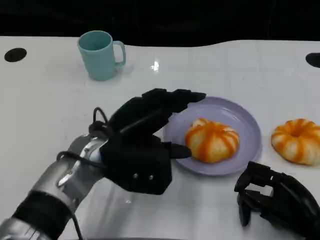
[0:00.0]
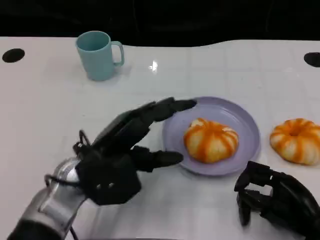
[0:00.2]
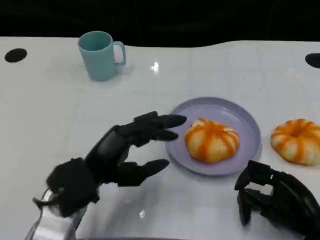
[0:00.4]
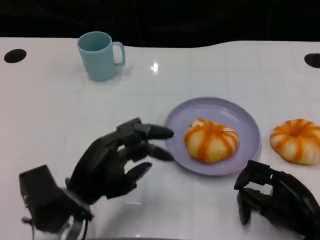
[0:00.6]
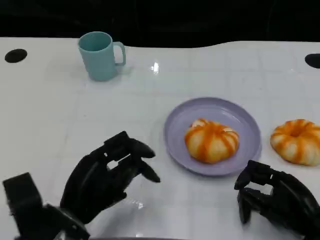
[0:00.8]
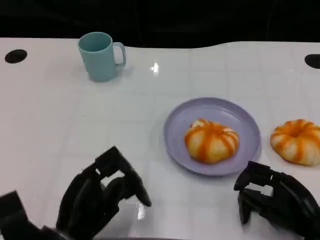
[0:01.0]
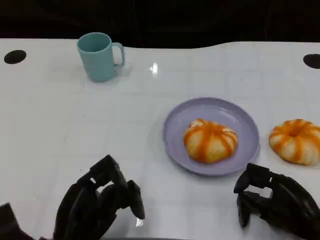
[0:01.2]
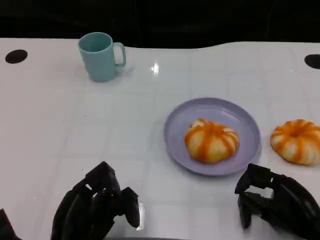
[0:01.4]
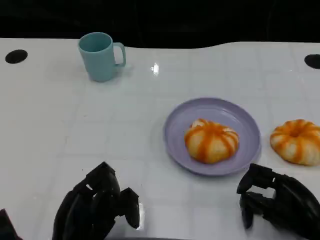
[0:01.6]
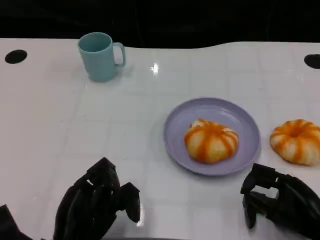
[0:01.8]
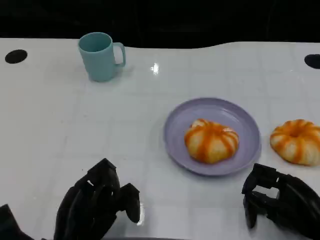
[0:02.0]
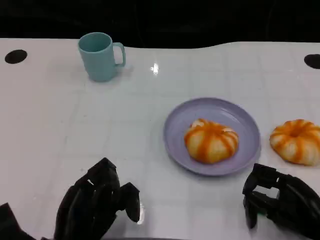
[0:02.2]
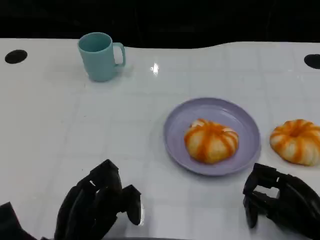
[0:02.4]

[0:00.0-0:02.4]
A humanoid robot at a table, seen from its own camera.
Task of the whole recording: Grasp the bread from the table and place it into the plate.
0:00.0 to 0:01.2: The left hand is displaced backward, downward and to the left by approximately 15 cm.
0:01.2 to 0:02.4: Both hands stay about where they are.

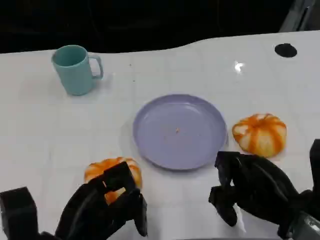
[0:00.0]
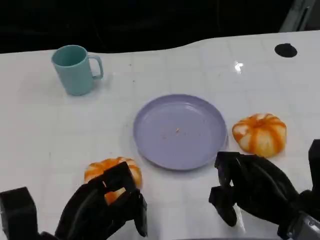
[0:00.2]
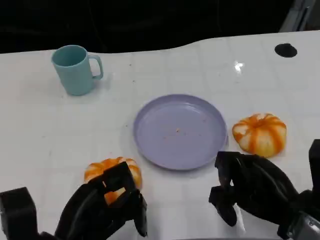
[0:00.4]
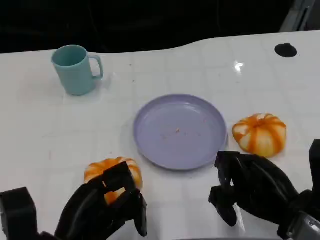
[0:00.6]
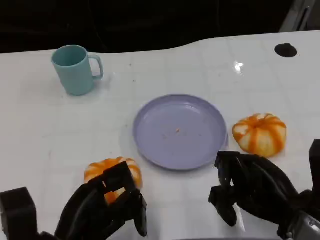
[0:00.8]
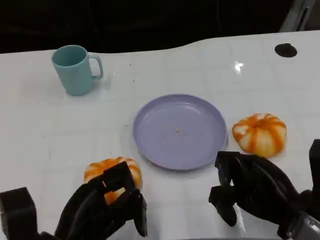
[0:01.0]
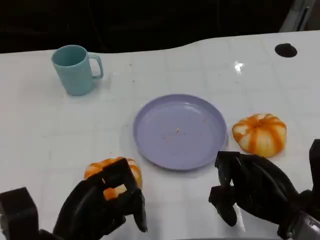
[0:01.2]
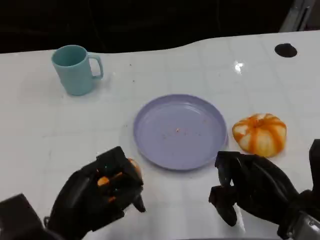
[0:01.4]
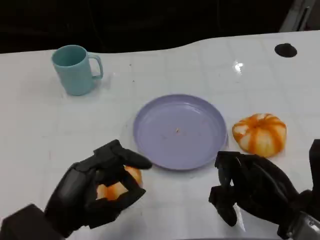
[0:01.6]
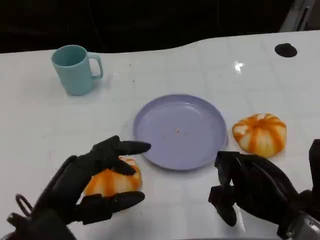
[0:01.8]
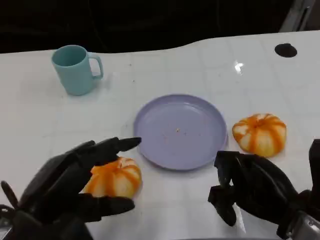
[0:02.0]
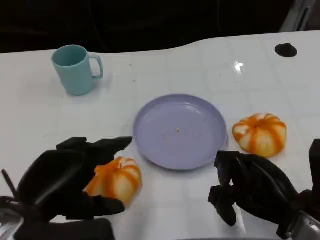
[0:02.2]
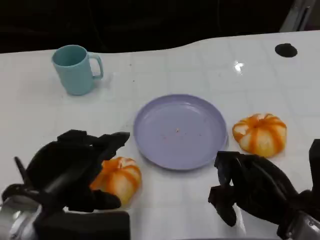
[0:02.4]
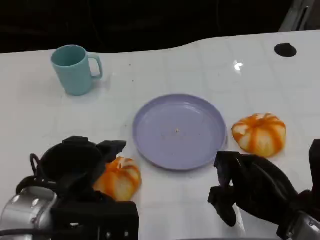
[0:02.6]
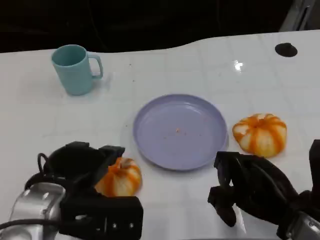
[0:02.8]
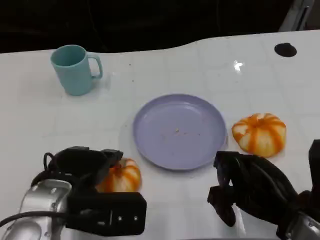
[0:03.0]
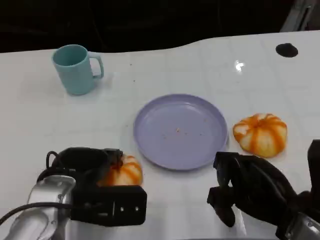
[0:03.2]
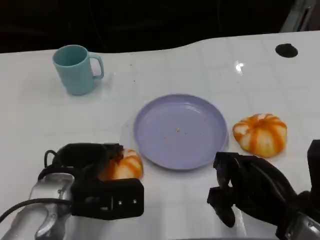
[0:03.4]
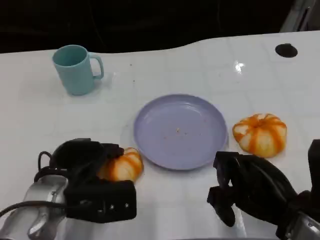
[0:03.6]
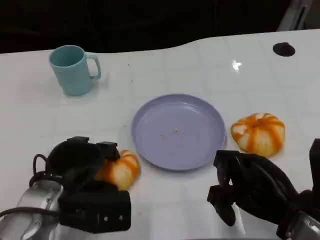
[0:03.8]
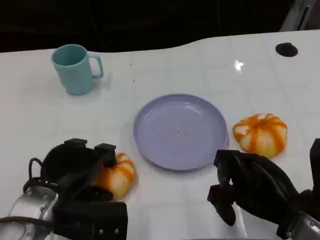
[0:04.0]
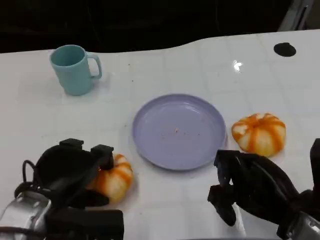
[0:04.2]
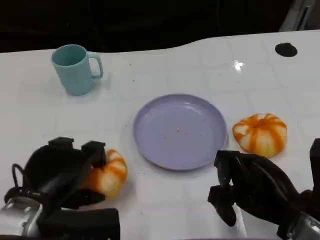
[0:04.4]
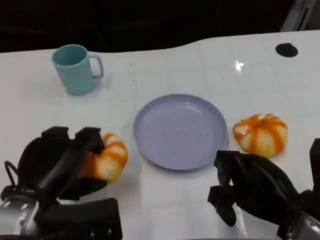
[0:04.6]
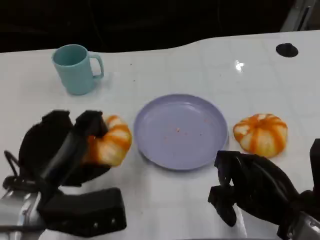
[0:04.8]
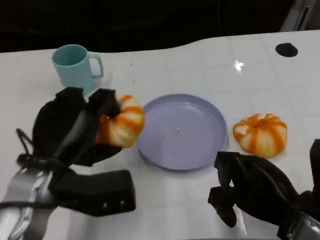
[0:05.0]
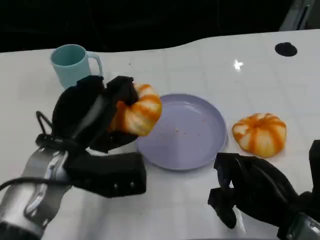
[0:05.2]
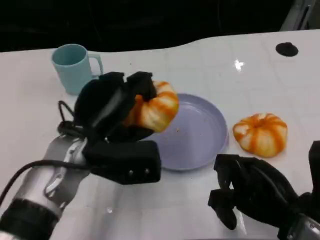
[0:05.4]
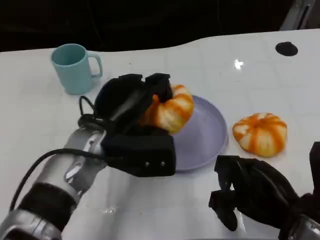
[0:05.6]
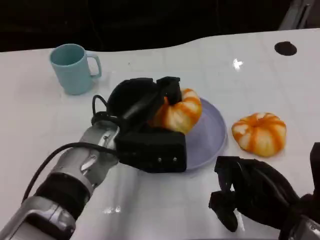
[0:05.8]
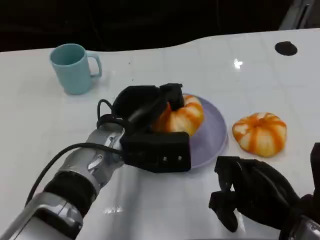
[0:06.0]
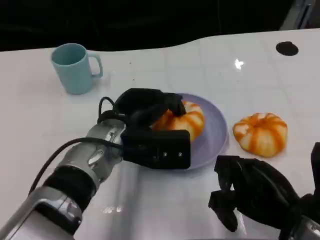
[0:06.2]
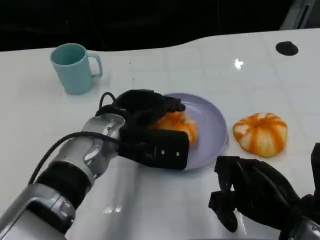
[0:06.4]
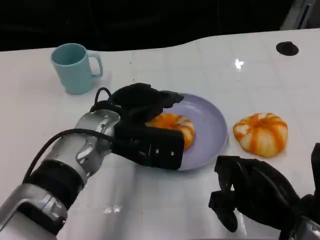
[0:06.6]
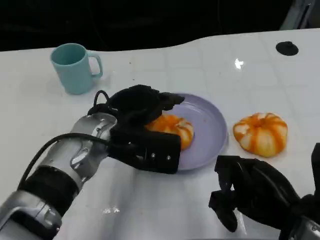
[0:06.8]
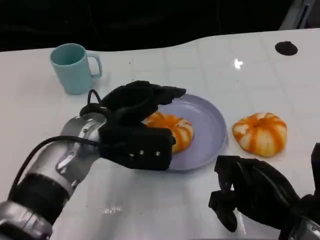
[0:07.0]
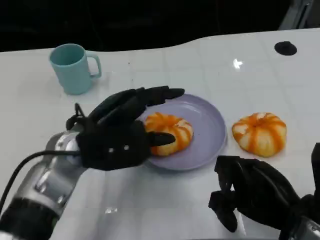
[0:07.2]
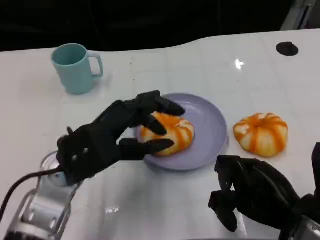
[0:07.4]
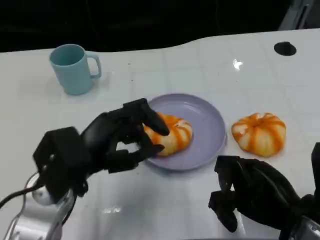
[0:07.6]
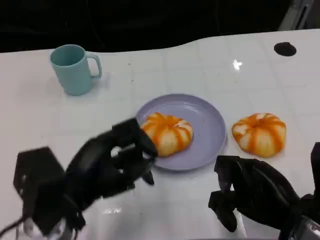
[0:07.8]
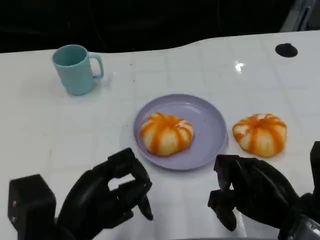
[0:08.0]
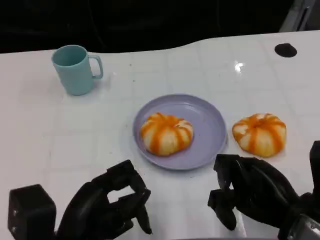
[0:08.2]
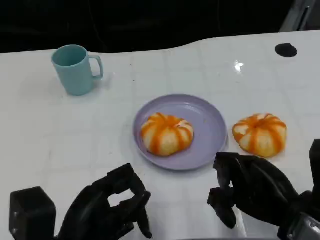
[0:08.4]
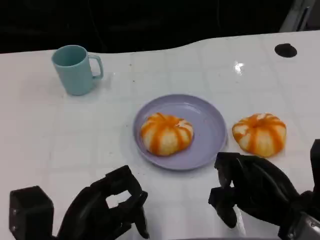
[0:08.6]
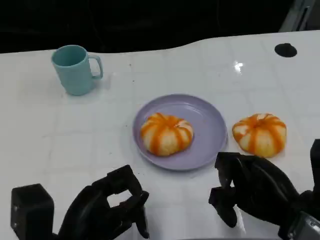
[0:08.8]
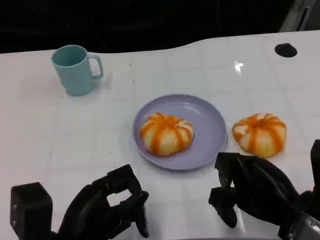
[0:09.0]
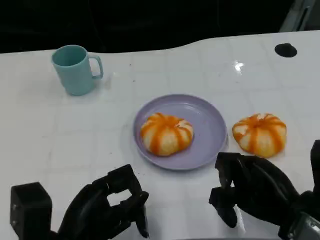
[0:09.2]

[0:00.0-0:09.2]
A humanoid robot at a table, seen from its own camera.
Task of the whole recording: Grasp the bread from the table and place it into the plate.
0:01.6 to 0:03.0: The left hand shifts some 5 cm forward.
0:04.6 to 0:06.2: The left hand moves to the right and forward, about 15 cm.
0:06.2 to 0:07.6: The left hand travels to the left and backward by approximately 10 cm.
0:07.6 to 0:09.2: The left hand is displaced backward and downward by roughly 10 cm.

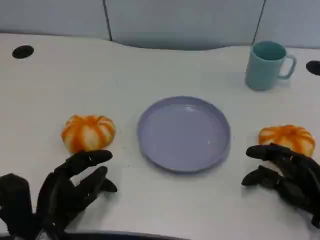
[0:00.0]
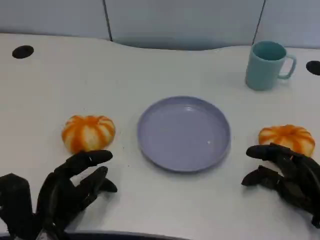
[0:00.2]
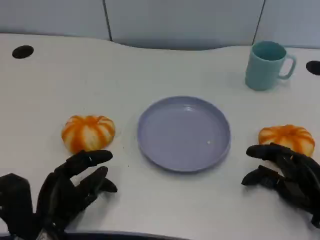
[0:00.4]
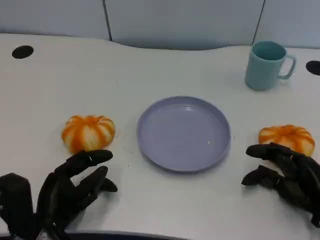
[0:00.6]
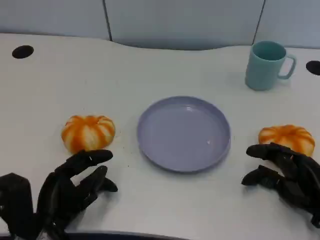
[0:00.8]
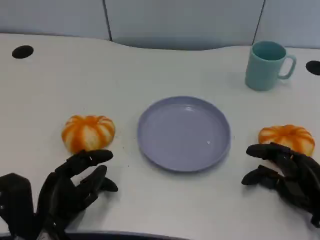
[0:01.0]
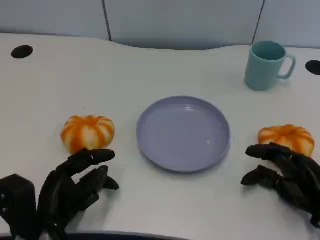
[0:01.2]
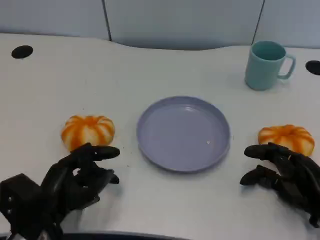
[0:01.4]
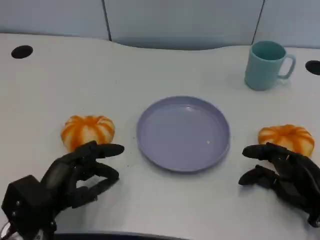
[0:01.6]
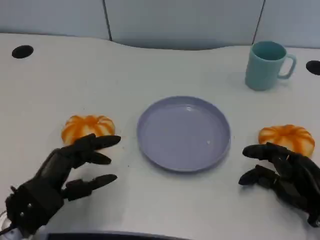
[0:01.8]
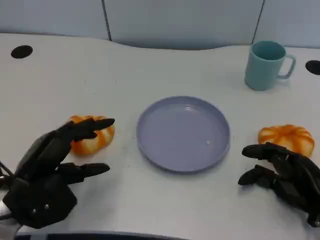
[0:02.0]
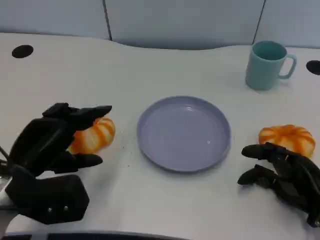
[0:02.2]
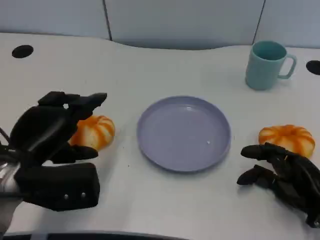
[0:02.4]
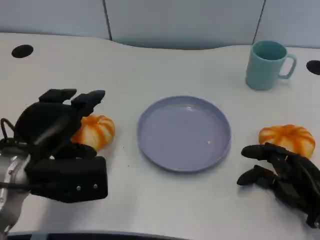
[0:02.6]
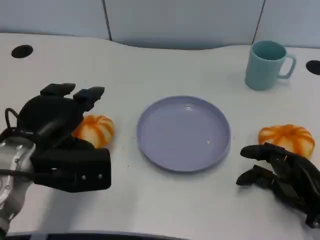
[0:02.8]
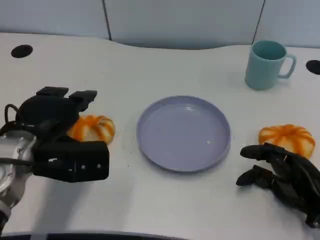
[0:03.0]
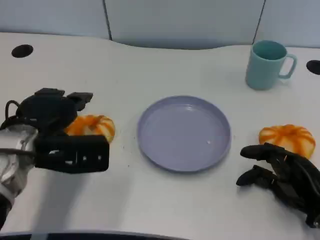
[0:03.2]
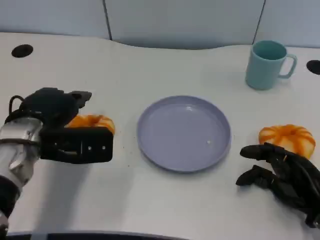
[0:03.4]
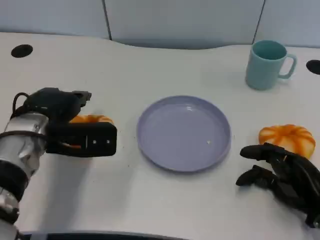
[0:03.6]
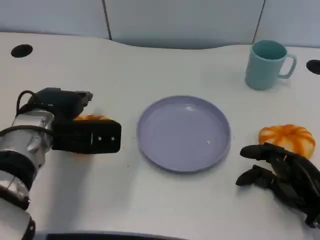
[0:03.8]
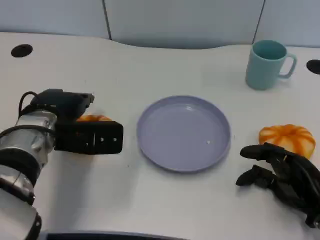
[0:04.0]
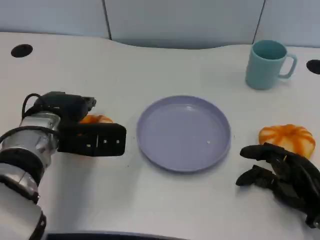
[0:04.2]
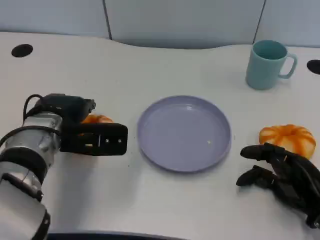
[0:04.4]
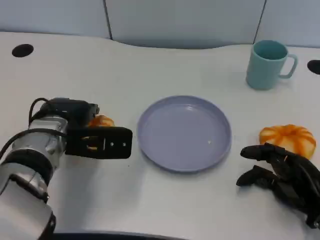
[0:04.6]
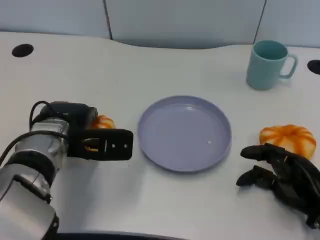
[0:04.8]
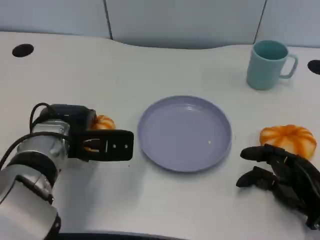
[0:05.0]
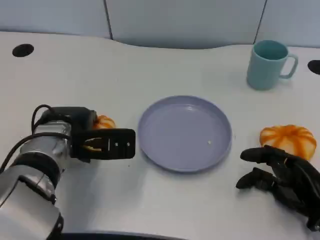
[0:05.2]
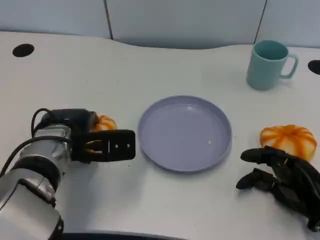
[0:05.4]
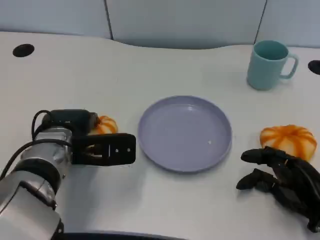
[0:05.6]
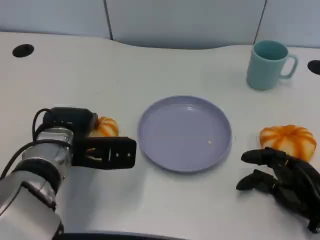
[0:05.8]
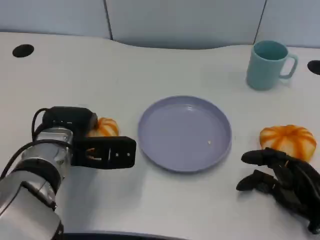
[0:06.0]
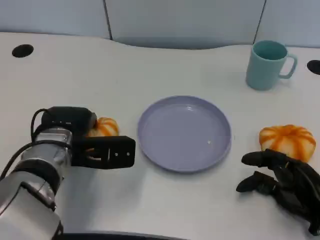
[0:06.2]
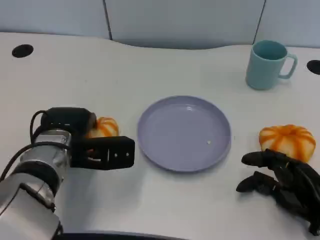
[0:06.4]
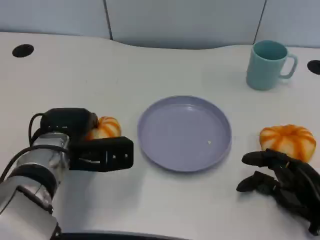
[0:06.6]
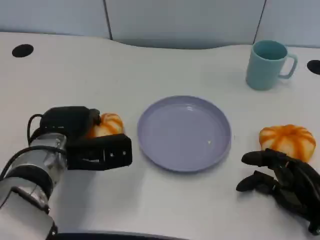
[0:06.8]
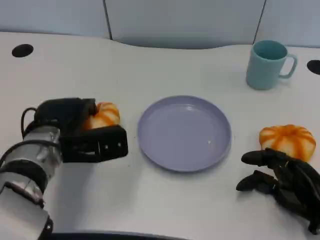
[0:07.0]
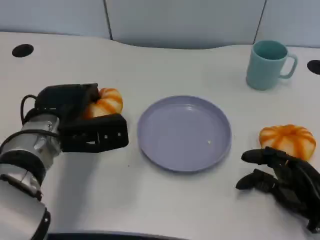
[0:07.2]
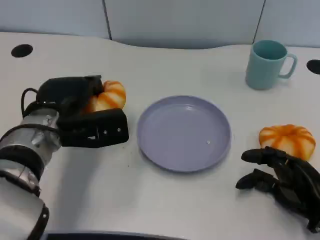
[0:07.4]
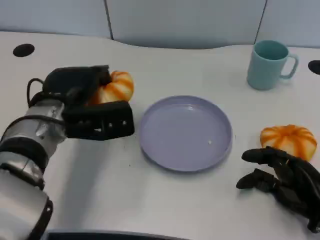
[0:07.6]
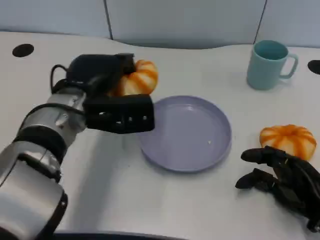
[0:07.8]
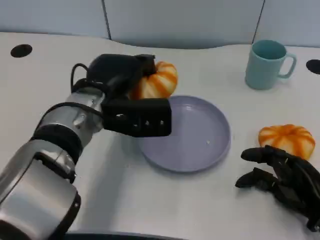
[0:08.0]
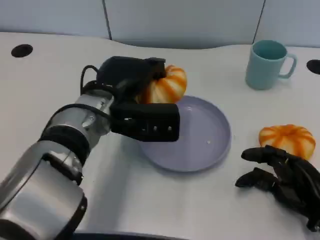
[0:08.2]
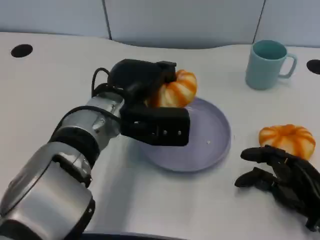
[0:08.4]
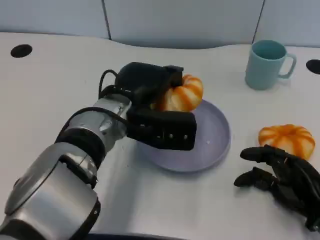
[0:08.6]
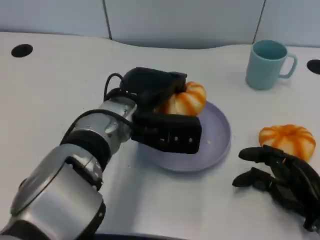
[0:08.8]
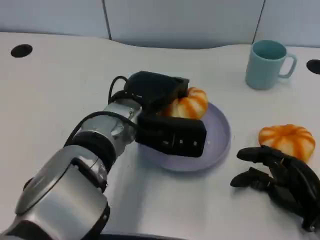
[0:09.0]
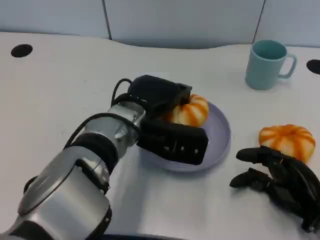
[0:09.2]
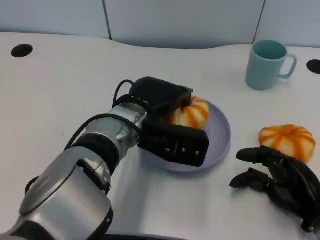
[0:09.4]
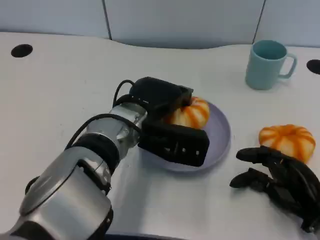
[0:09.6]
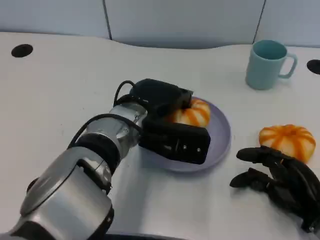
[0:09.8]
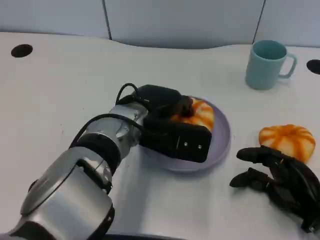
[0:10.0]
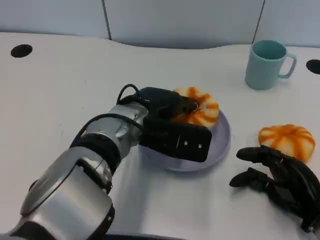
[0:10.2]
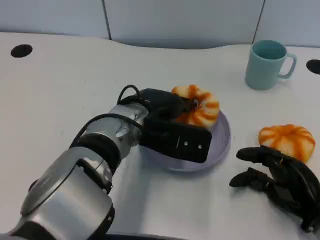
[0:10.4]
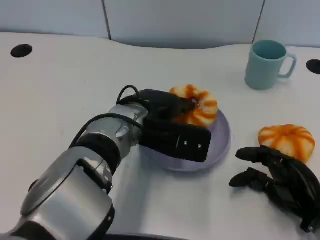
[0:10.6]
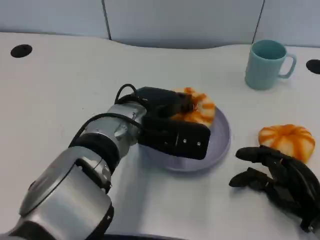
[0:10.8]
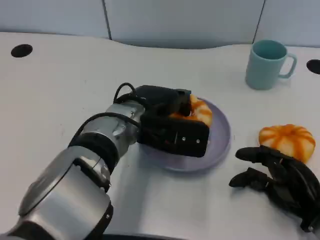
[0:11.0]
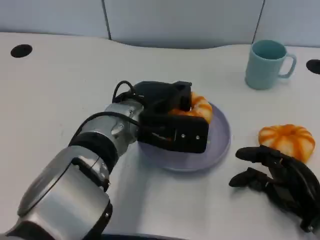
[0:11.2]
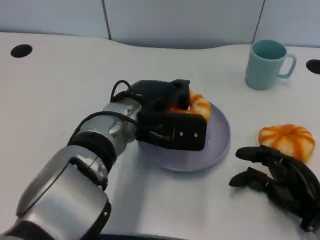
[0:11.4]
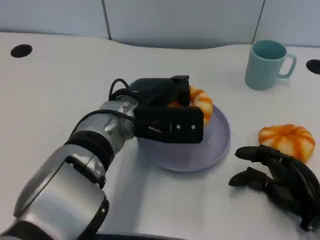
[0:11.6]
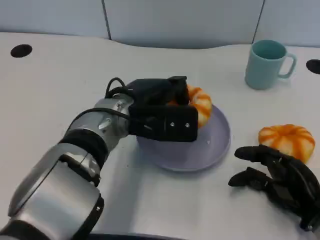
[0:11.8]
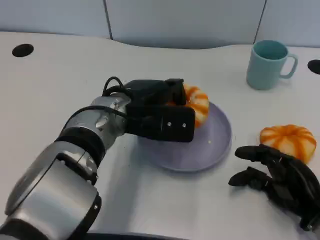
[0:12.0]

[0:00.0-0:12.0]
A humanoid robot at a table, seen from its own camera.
Task of the whole recording: Grasp the bread from the table and place it into the plate.
0:01.6 to 0:03.0: The left hand travels upward and forward by about 10 cm.
0:03.0 to 0:04.4: The left hand changes place by some 5 cm.
0:04.4 to 0:06.0: The hands make only small movements.
0:07.6 to 0:09.0: The left hand is displaced to the right by roughly 10 cm.
0:09.0 to 0:12.0: The hands make only small movements.
